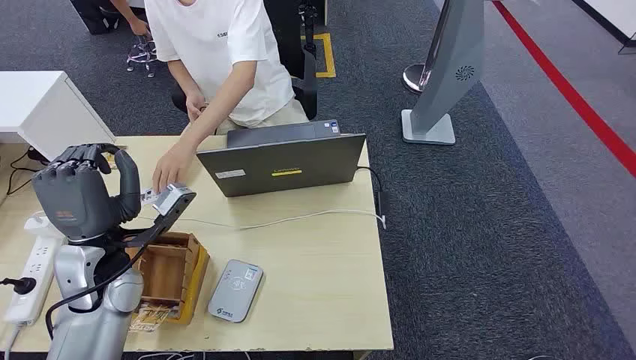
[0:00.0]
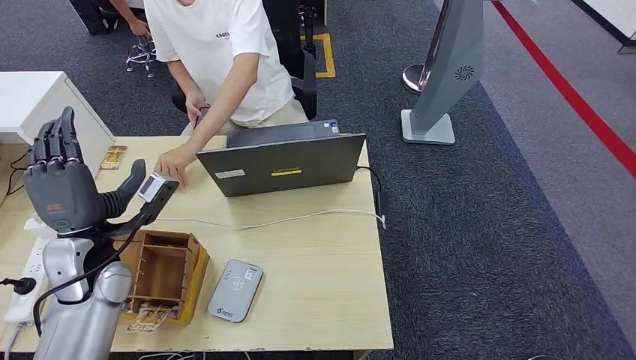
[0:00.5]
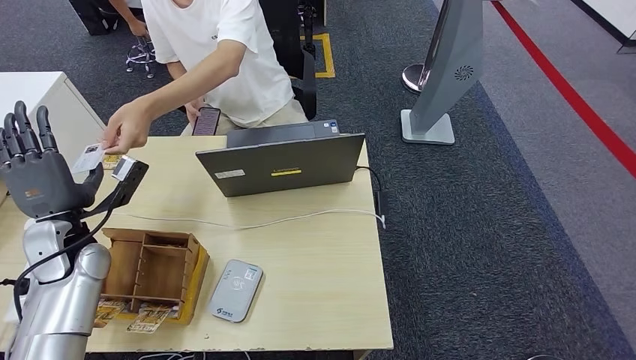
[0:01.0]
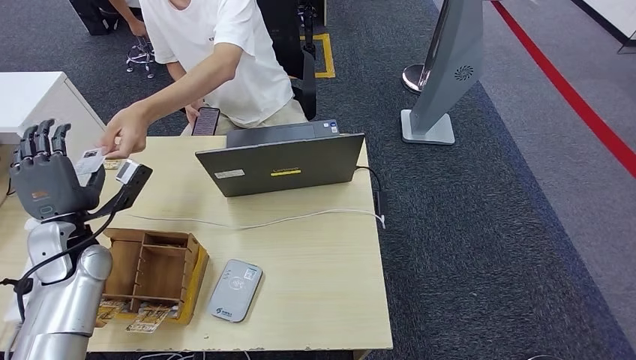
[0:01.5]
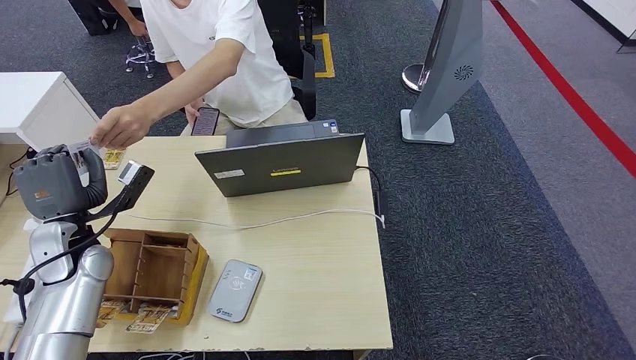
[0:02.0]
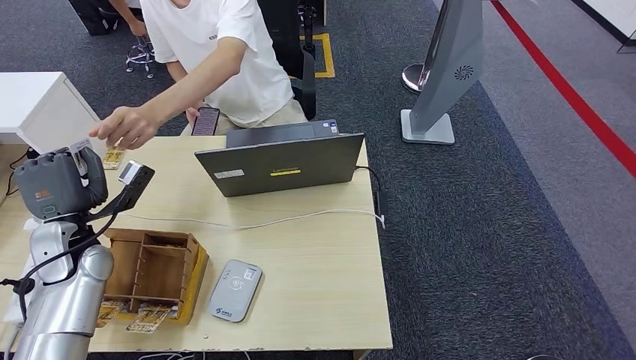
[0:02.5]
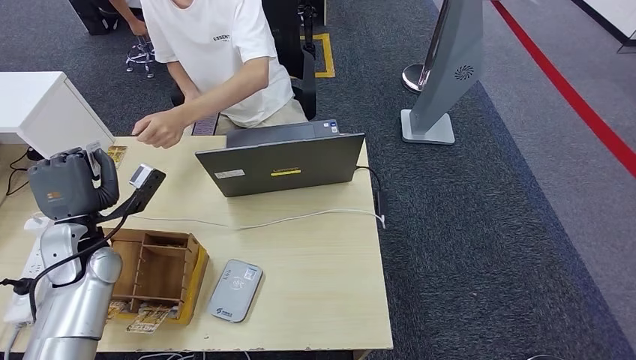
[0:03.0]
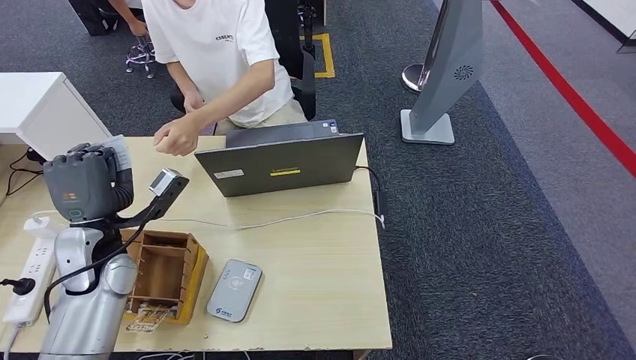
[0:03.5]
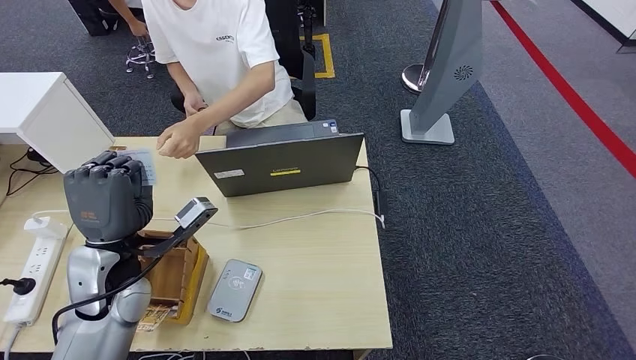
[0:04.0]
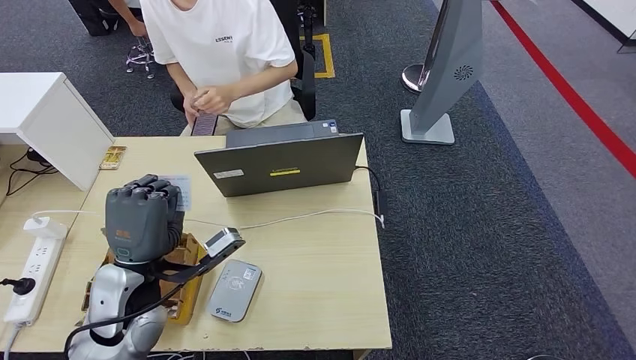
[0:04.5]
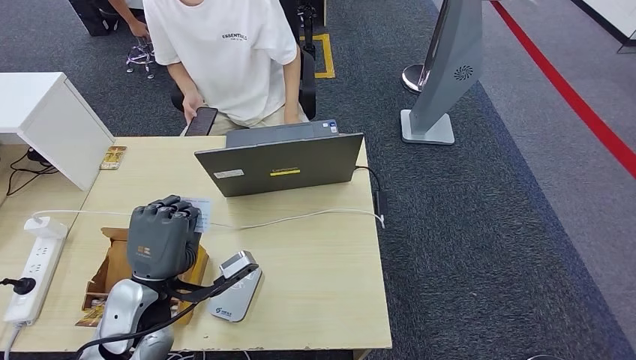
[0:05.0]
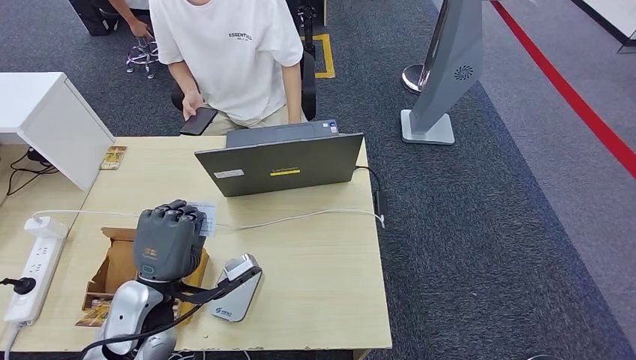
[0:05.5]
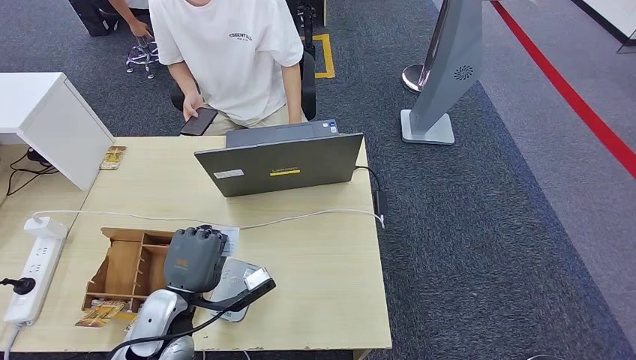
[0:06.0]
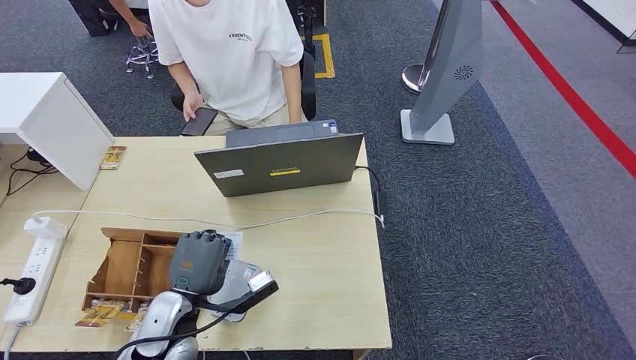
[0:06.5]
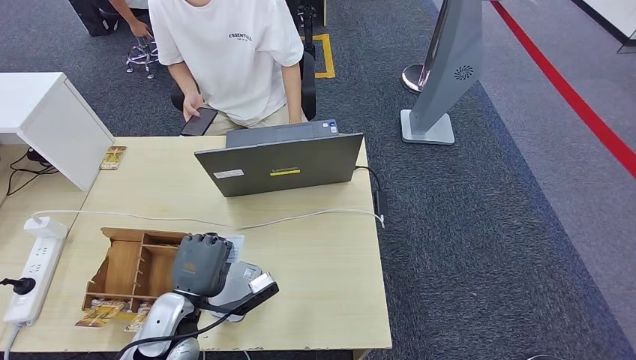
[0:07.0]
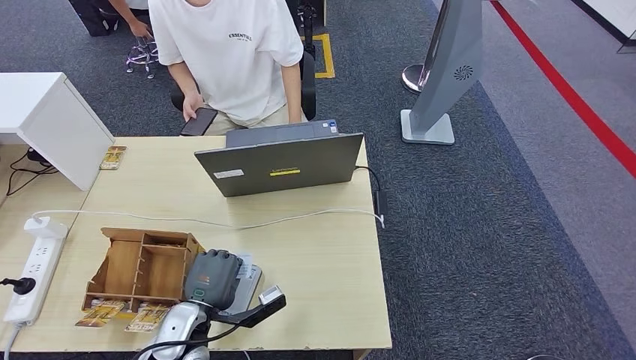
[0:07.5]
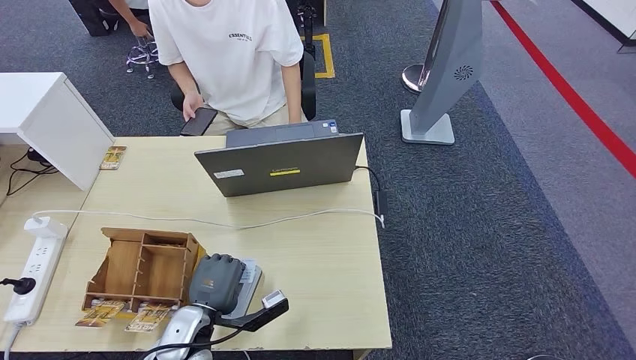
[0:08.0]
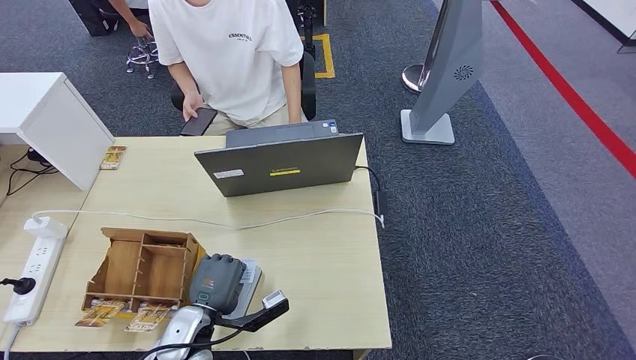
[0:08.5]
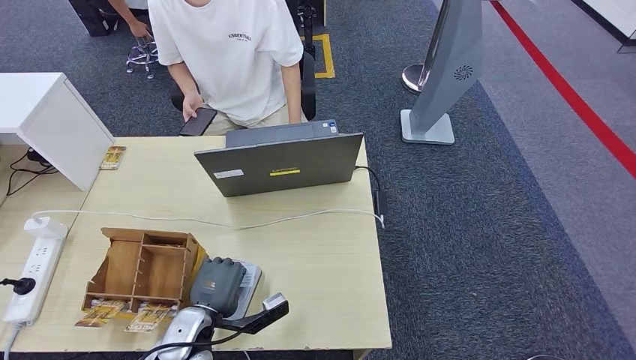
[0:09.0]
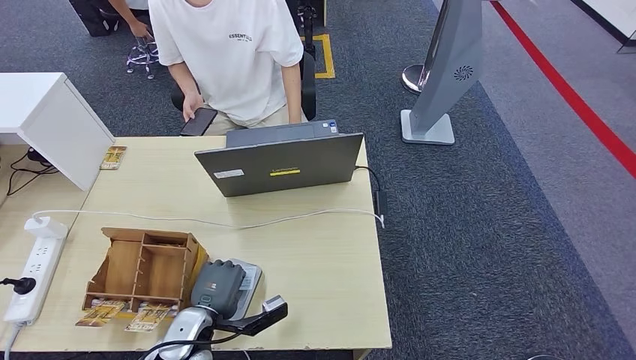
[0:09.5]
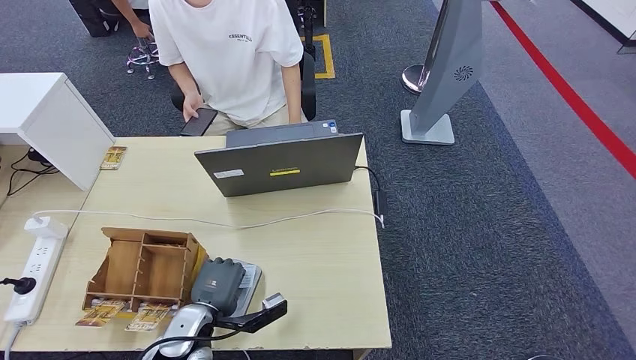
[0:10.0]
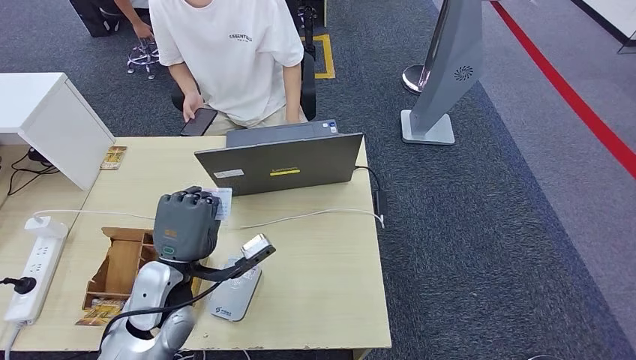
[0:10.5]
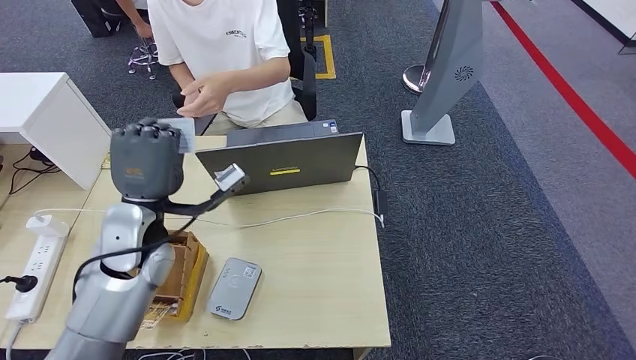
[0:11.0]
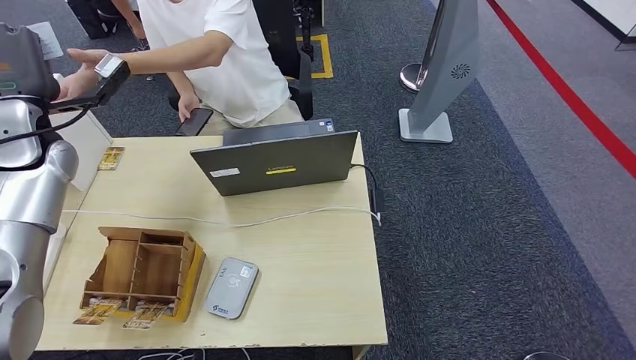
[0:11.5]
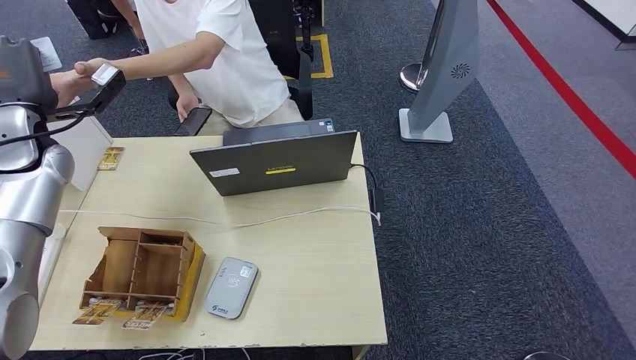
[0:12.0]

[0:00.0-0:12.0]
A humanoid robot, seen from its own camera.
Step, 0:00.0 to 0:03.0: Take the ID card from the person's hand.
Step, 0:03.5 to 0:11.0: Place the ID card on the card reader.
0:02.0 to 0:04.0: The left hand goes approximately 10 cm to the right and backward.
0:04.0 to 0:06.0: The left hand goes approximately 15 cm downward, backward and to the right.
0:06.0 to 0:08.0: The left hand is displaced downward by approximately 5 cm.
0:08.0 to 0:10.0: The hands make only small movements.

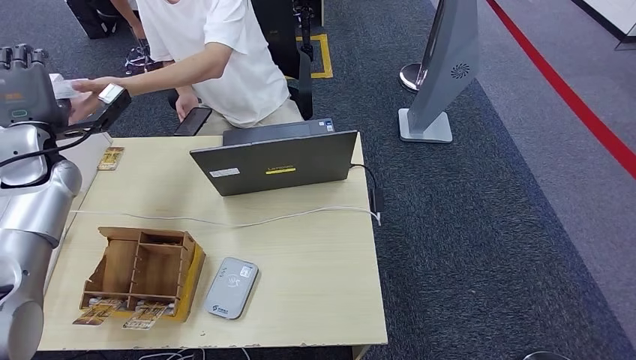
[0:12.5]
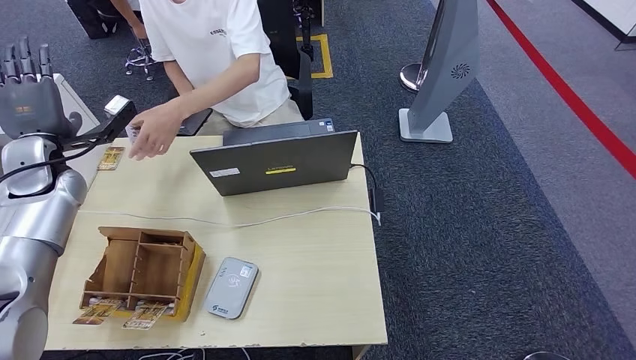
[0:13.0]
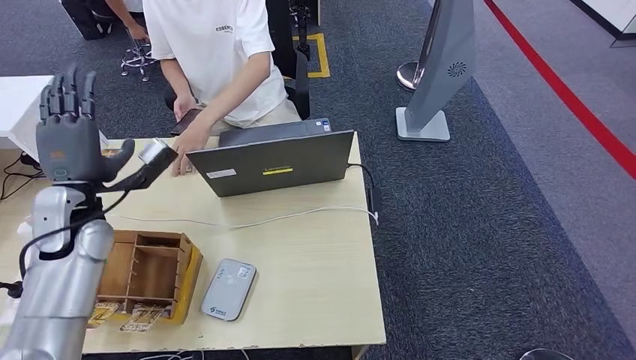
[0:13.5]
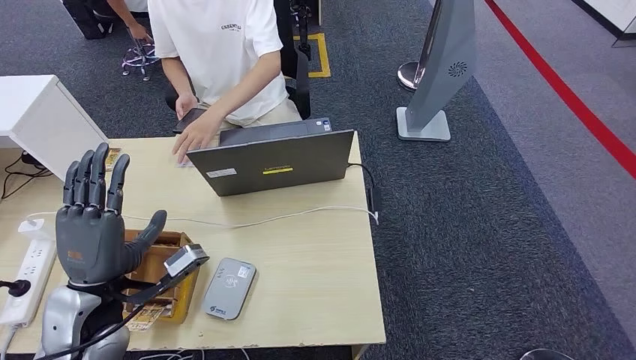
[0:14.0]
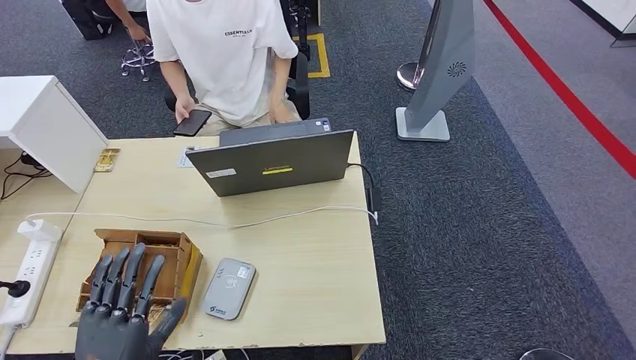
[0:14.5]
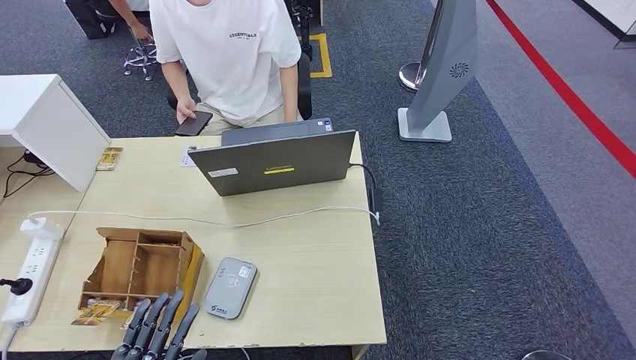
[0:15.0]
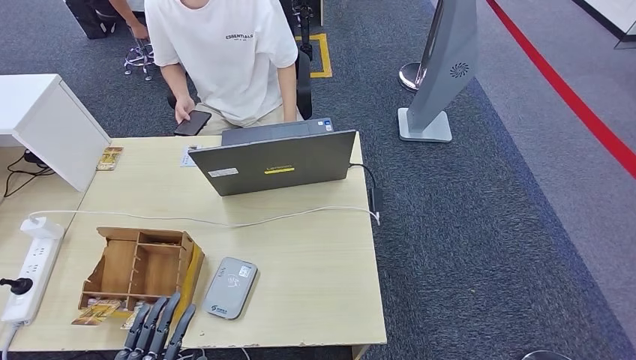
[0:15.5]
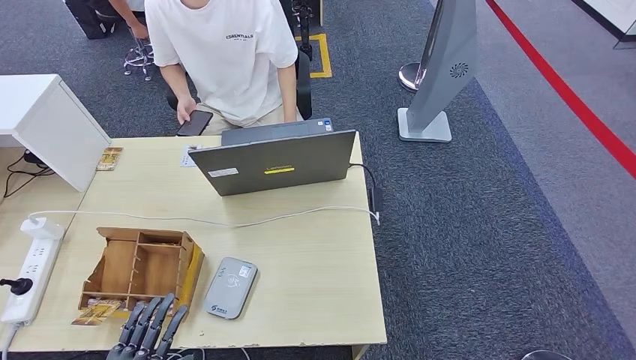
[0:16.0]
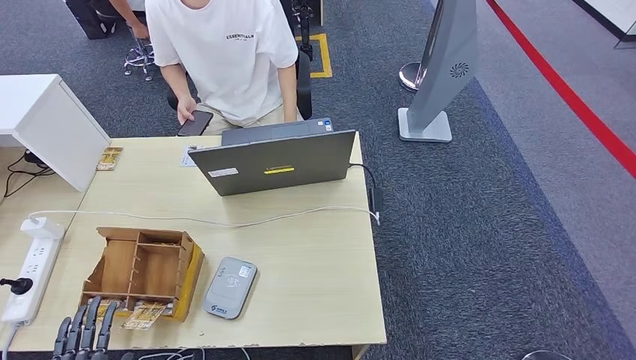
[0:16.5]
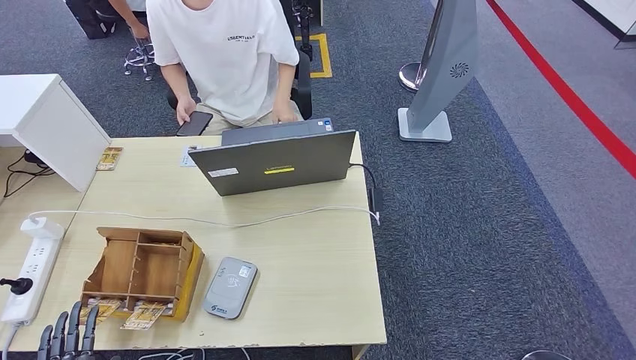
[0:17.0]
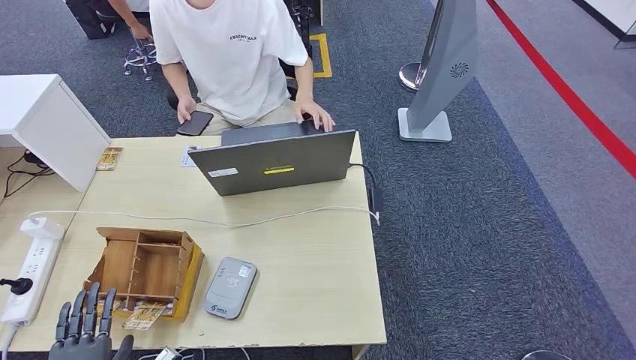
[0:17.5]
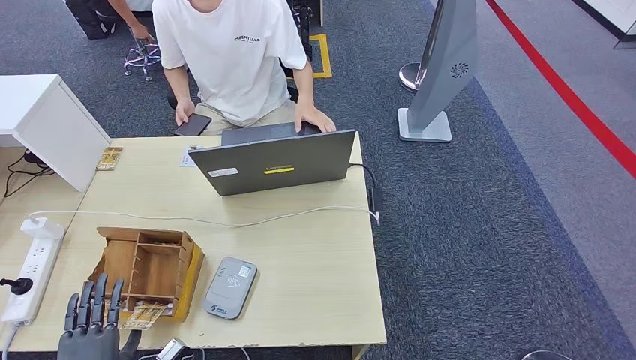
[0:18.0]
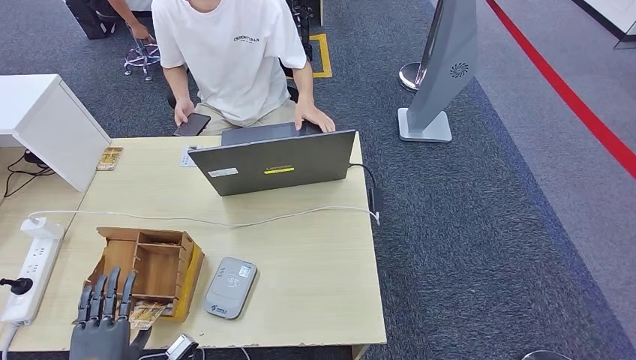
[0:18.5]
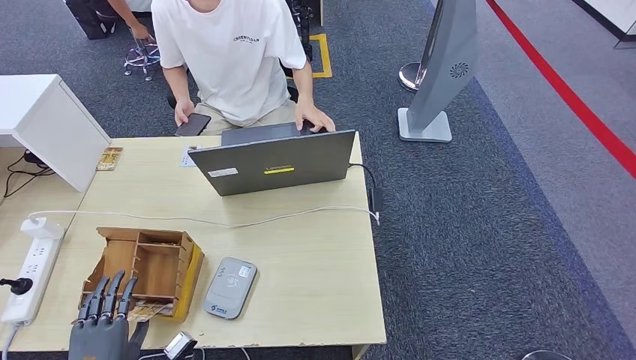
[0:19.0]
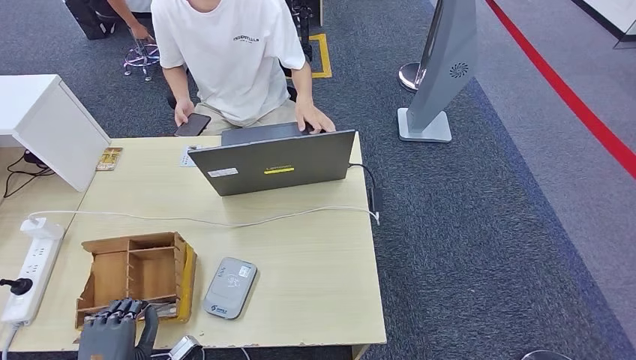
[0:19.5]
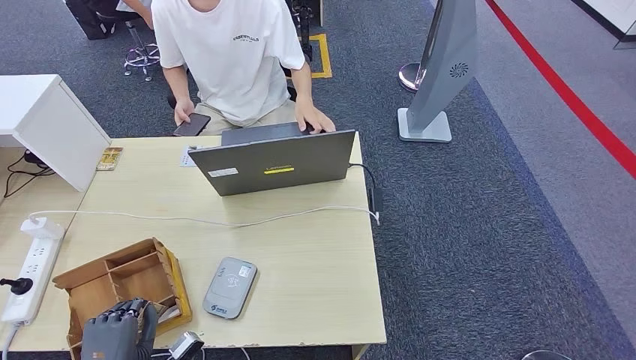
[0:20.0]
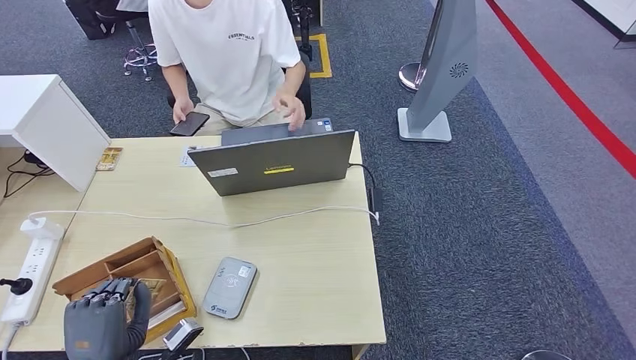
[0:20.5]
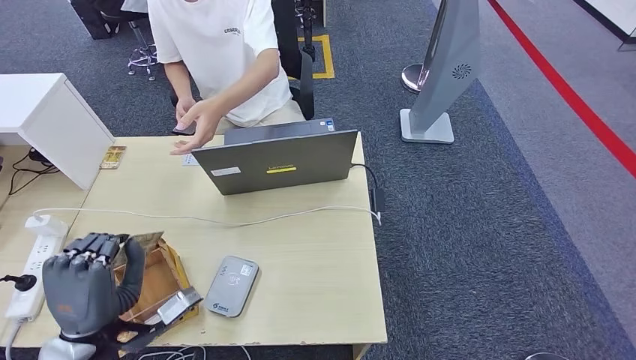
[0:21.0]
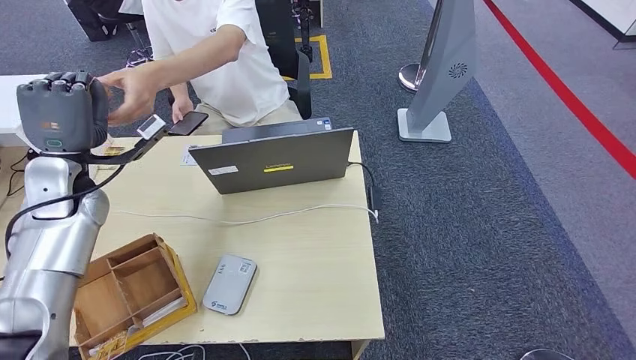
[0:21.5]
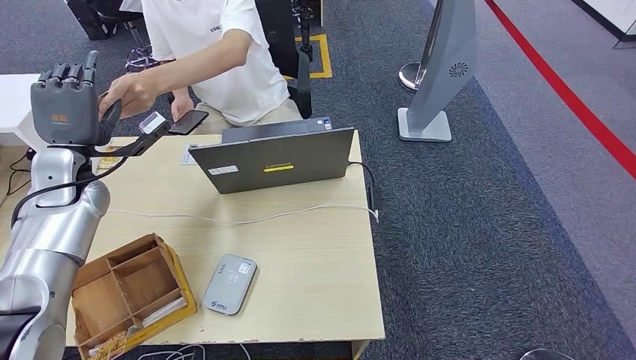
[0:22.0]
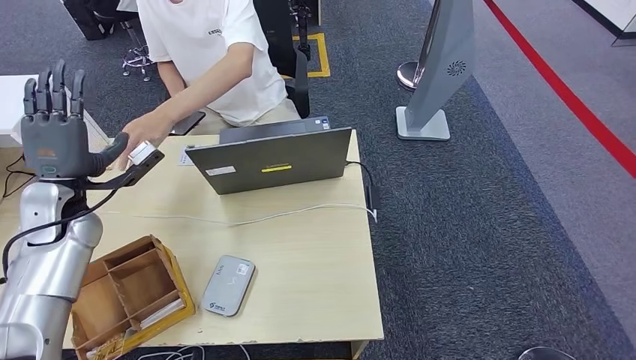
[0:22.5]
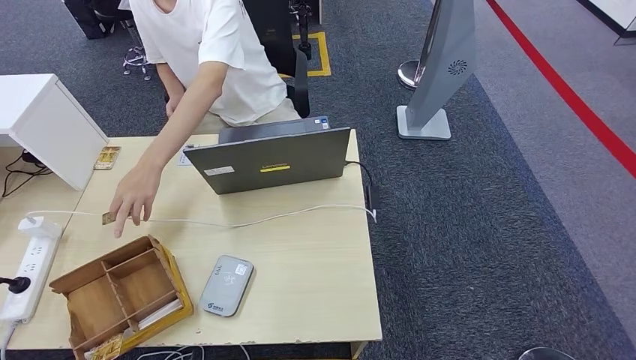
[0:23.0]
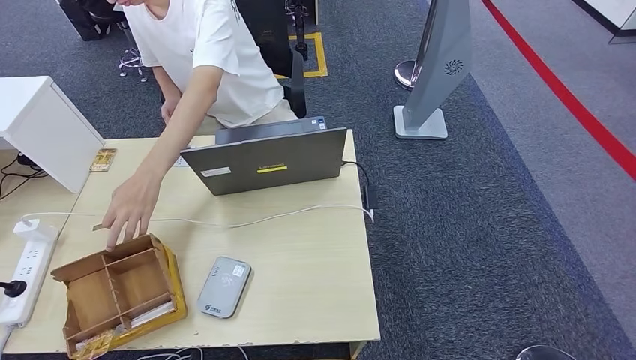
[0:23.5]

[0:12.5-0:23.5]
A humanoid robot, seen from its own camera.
Step, 0:12.5 to 0:16.0: Hand the ID card to the person.
Step, 0:16.5 to 0:20.0: Pick up the room key from the key card box.
0:14.5 to 0:16.0: The left hand moves backward and downward, approximately 10 cm.
0:16.0 to 0:18.0: The left hand travels forward by approximately 5 cm.
0:18.0 to 0:20.0: The hands make only small movements.
